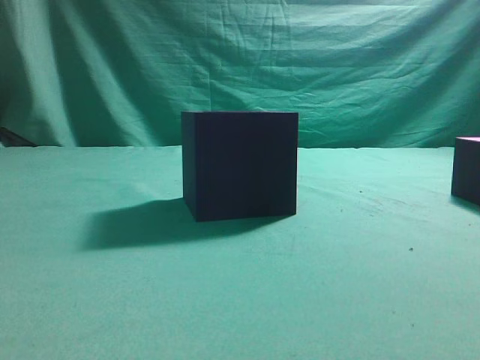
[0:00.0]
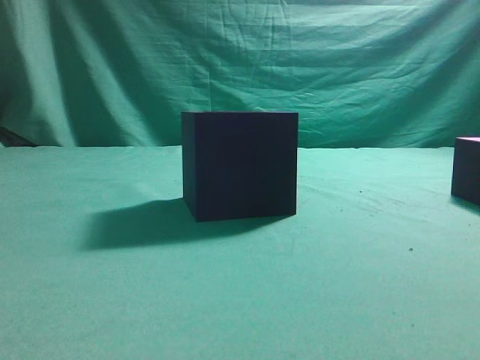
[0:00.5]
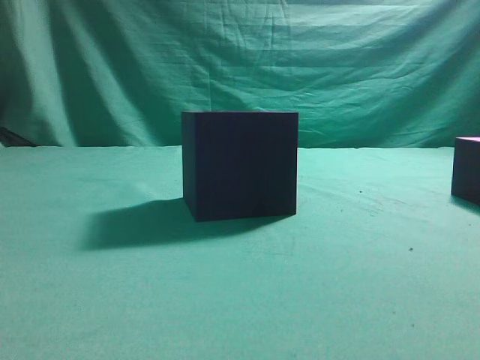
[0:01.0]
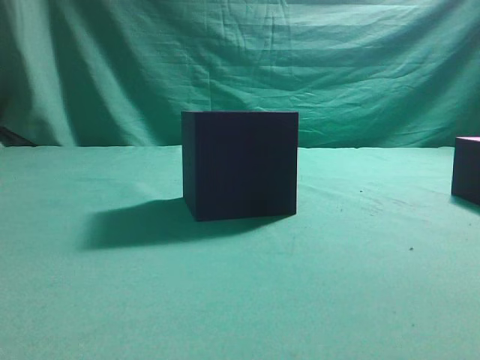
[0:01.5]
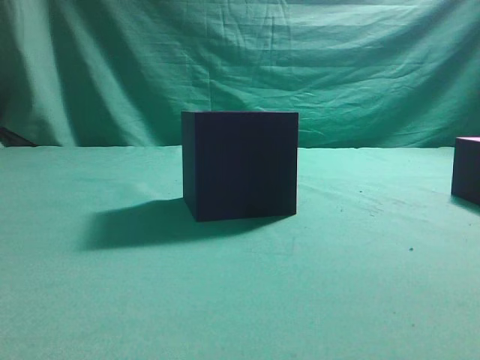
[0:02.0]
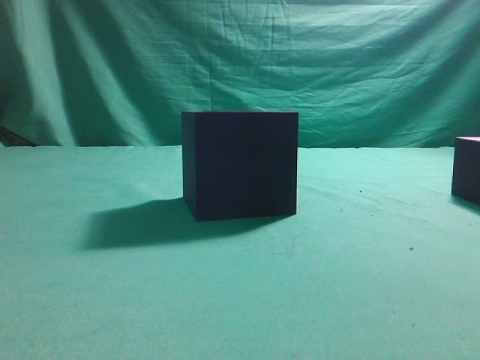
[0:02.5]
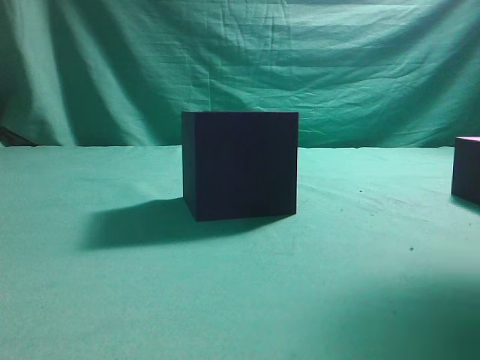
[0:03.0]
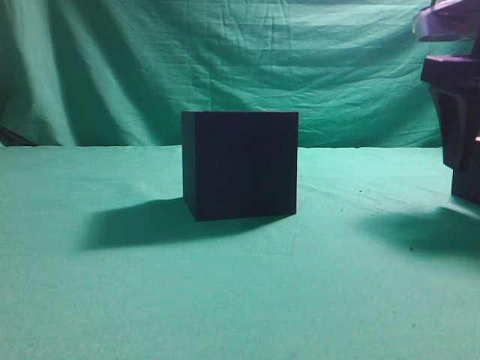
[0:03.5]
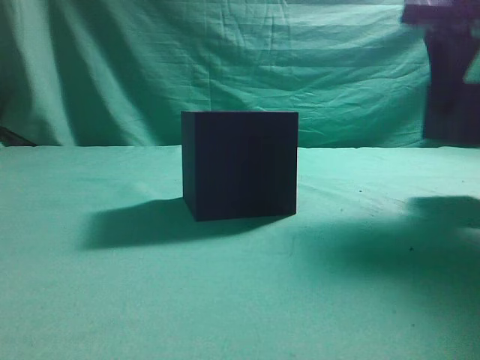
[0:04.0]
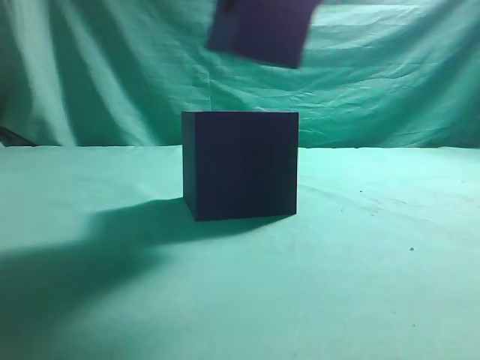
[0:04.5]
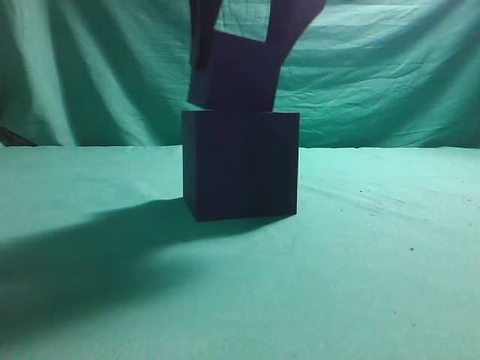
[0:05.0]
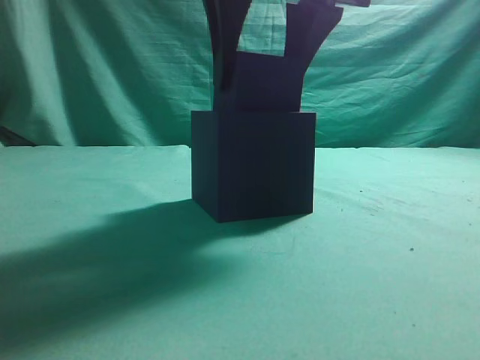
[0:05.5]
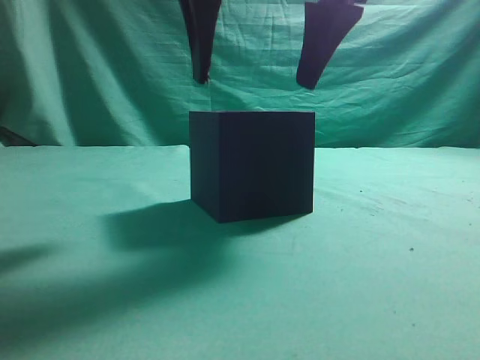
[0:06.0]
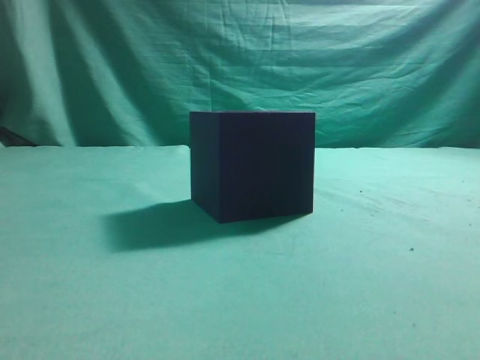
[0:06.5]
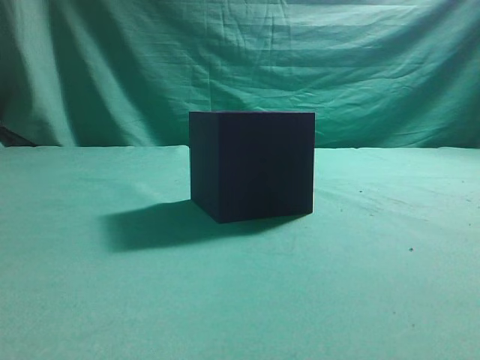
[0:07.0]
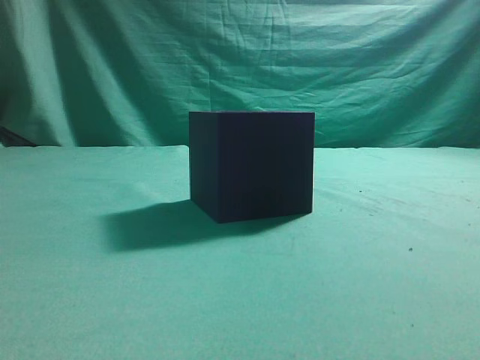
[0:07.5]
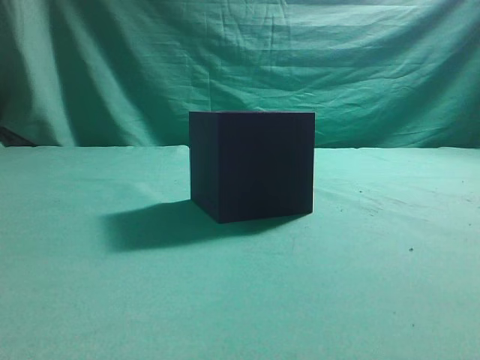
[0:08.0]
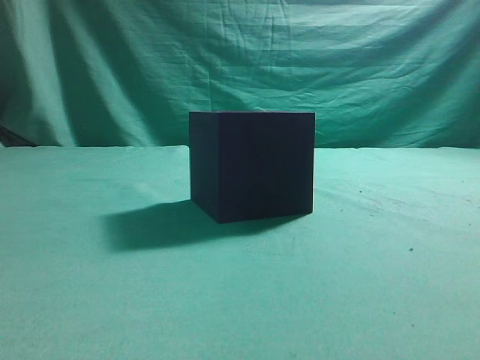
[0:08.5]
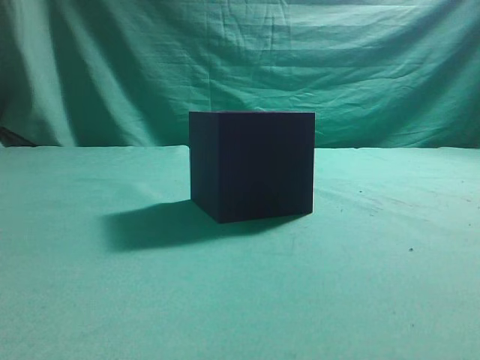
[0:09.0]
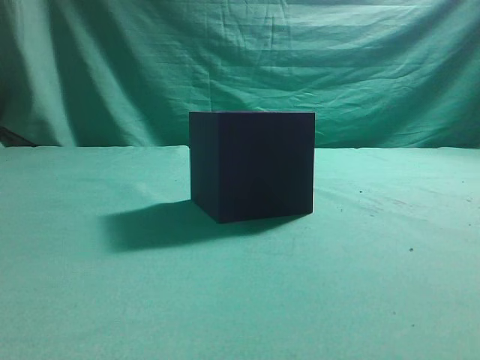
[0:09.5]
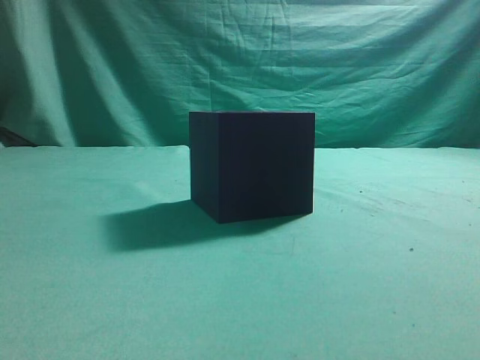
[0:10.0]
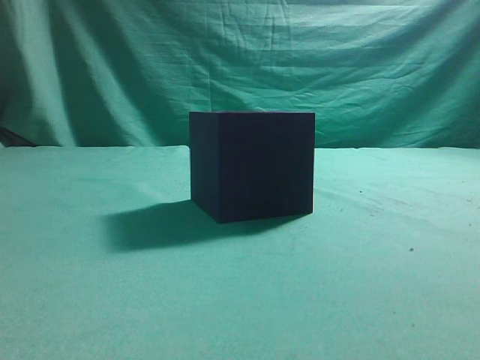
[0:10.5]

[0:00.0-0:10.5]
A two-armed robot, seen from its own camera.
Task of the whole recording: pick up the cube block and place it into the cube groove.
Step, 0:00.0 to 0:03.5: Grasp the cube.
Step, 0:04.0 to 0:05.5: Place cube into the cube-shaped recess.
0:02.0 to 0:04.0: The right gripper shifts roughly 25 cm forward, and opens.
0:04.0 to 0:06.5: The right gripper heads to the left, upward and backward, covering roughly 20 cm, and closes.
